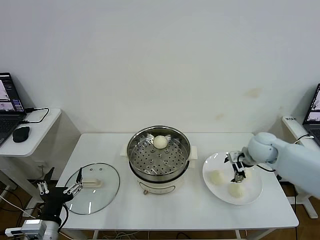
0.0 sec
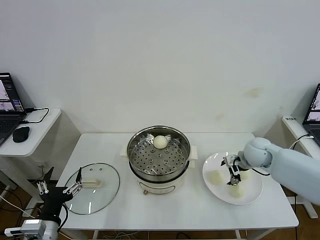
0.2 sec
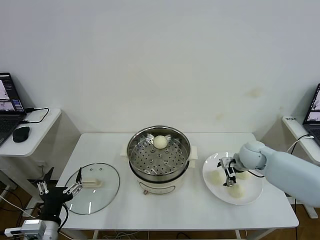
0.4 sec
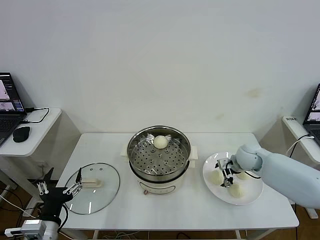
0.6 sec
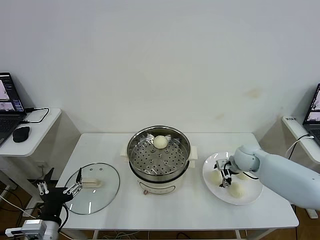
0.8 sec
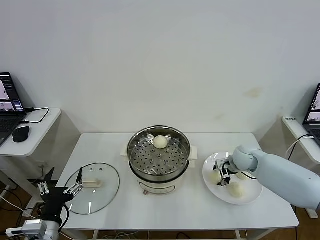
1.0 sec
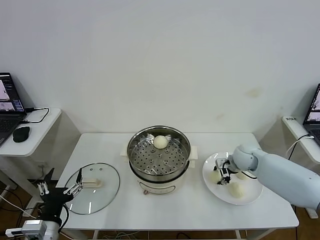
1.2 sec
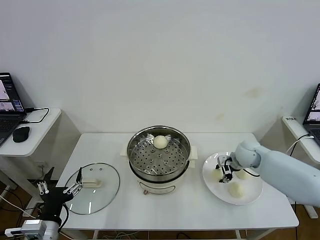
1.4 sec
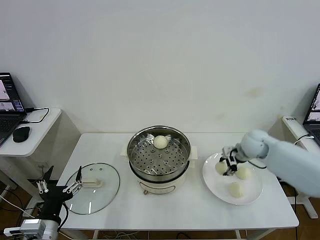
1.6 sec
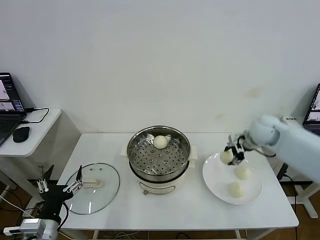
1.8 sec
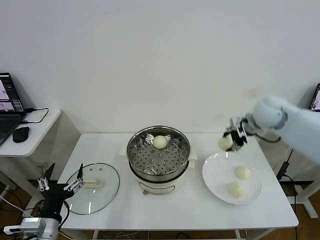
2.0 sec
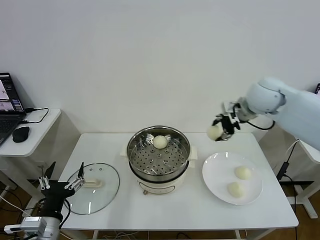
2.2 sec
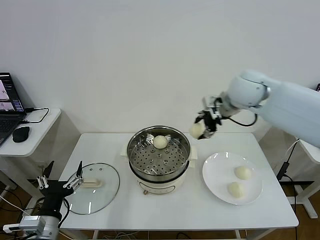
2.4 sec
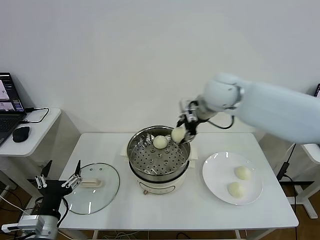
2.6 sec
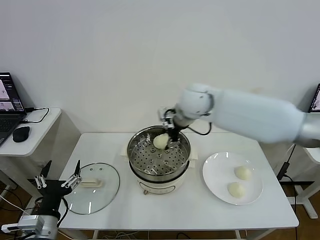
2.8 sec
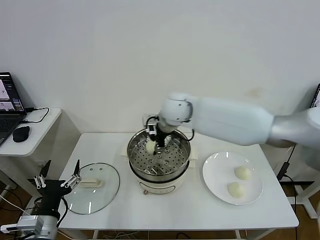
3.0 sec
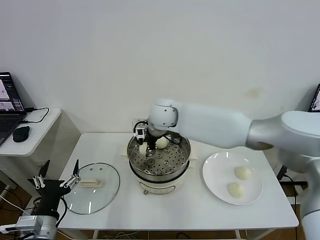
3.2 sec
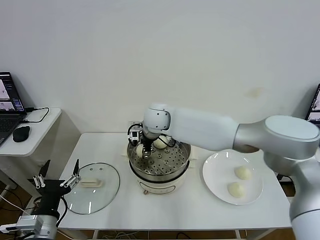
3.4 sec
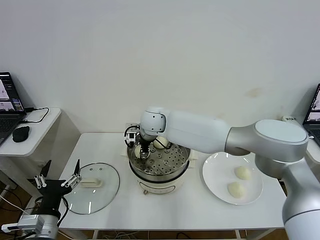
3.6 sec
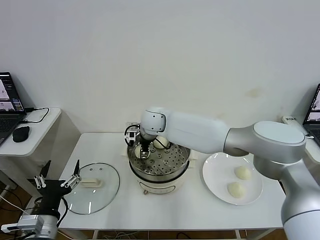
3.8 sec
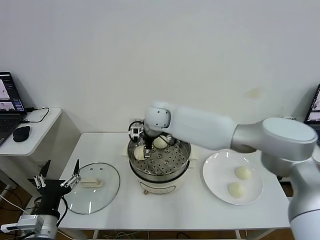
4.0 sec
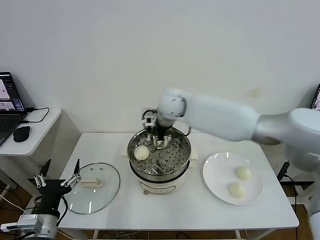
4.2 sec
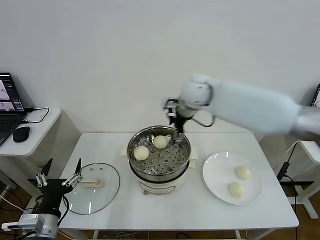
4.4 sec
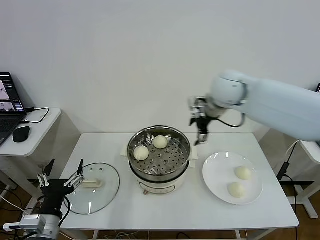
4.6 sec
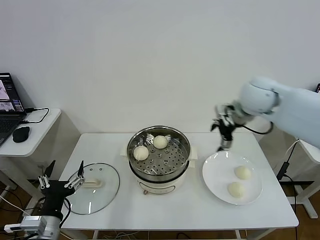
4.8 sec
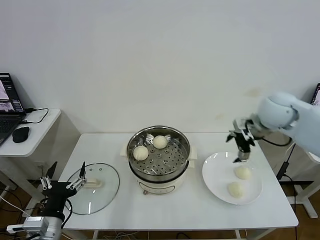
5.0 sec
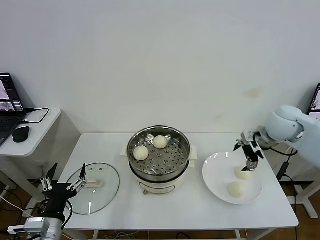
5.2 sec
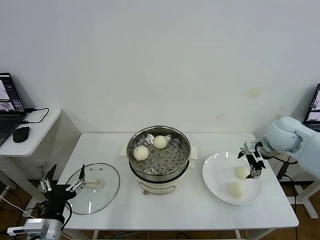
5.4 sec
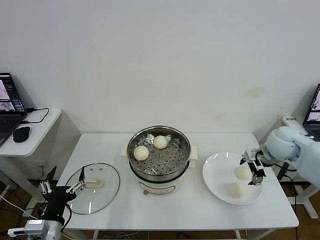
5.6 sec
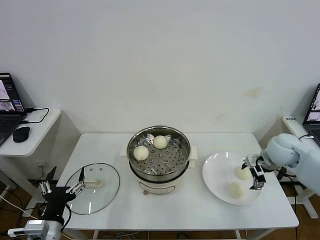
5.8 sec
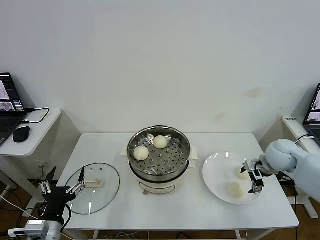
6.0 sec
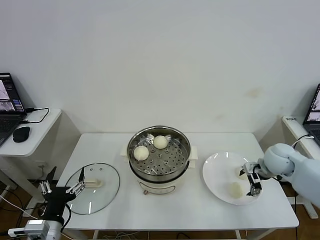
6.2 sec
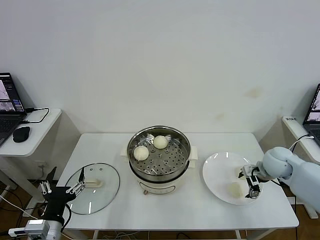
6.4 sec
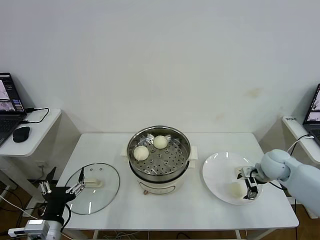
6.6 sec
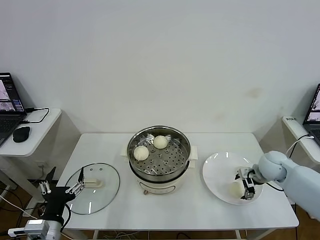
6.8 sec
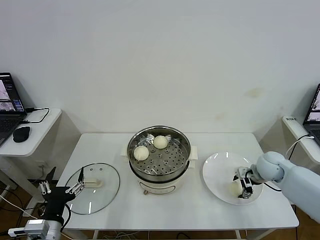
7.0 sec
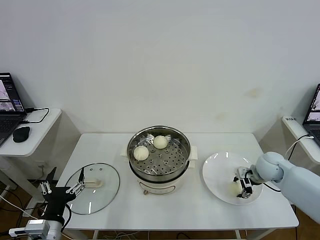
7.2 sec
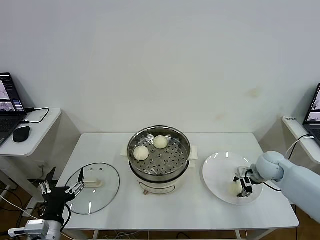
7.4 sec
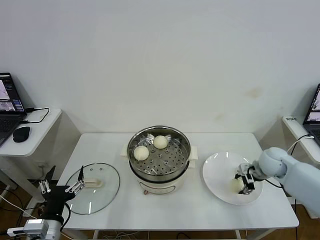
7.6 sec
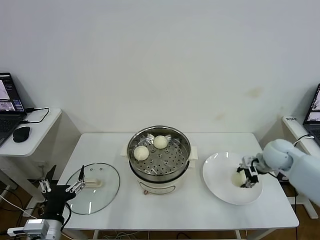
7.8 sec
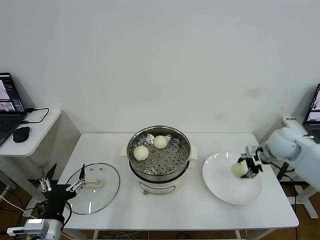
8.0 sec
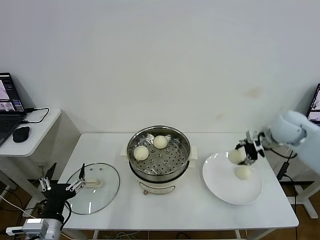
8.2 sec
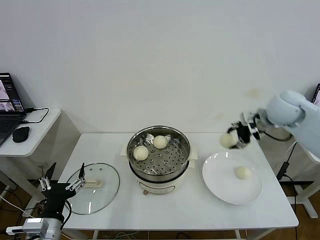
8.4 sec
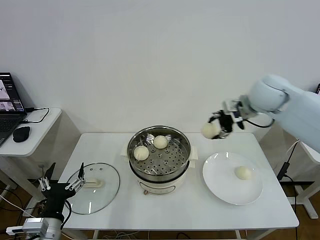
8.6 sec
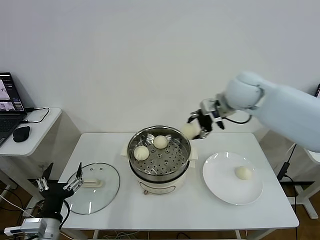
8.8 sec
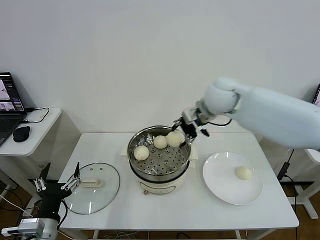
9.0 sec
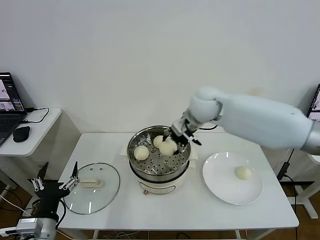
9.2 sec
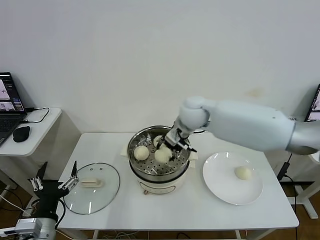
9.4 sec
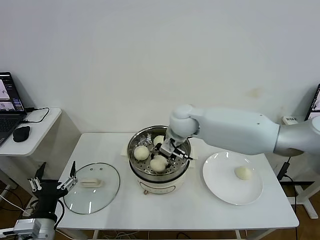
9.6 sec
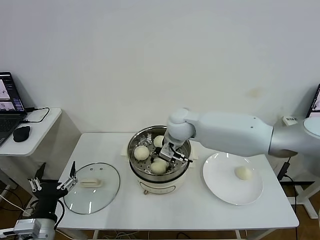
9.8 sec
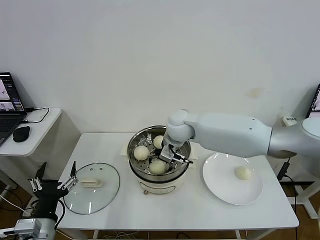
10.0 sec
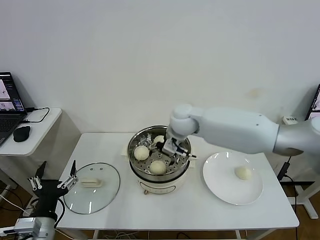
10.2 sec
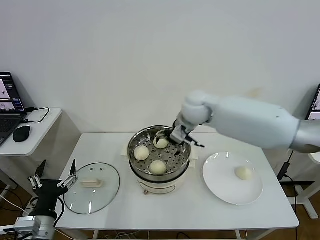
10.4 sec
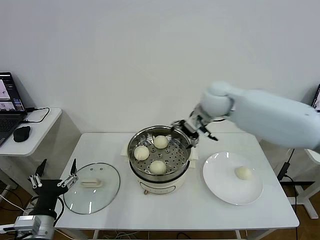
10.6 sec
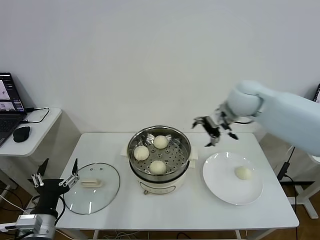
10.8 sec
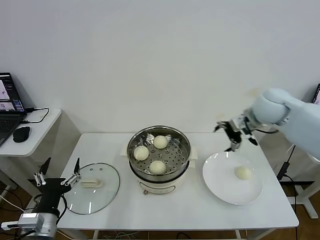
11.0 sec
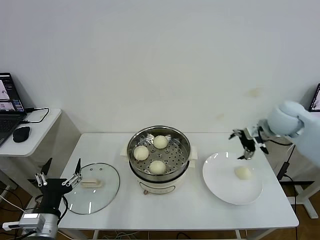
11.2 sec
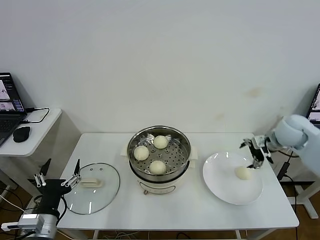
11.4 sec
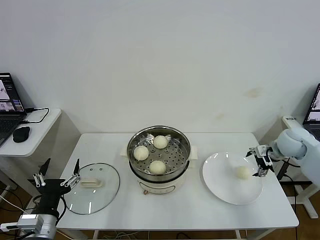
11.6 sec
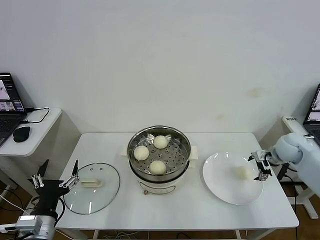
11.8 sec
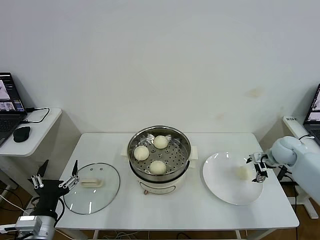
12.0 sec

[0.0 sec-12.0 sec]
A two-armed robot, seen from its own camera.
Step, 1.4 sec to 4.0 sec: Place the baozi on the steamer with right gripper.
Step, 4.2 sec to 7.4 sec: Grasp the baozi in the plate with right gripper.
Step, 7.6 sec to 10.2 sec: Place the baozi on the steamer with right gripper.
0.0 sec to 1.6 sec: The right gripper travels downward and back again, approximately 5 cm each way, and closes its fingers.
1.6 sec to 3.0 sec: The right gripper is displaced to the left by approximately 30 cm.
3.0 sec to 4.4 sec: The right gripper moves to the right and upward, approximately 10 cm, and opens up.
4.4 sec to 6.0 sec: The right gripper shifts approximately 30 cm to the right and downward.
6.0 sec to 7.6 sec: The right gripper closes.
7.6 sec to 9.0 sec: The right gripper shifts roughly 30 cm to the left and upward.
9.0 sec to 10.4 sec: The right gripper moves about 10 cm downward and comes back, and opens.
10.4 sec to 12.0 sec: The right gripper heads to the right and downward, covering some 35 cm.

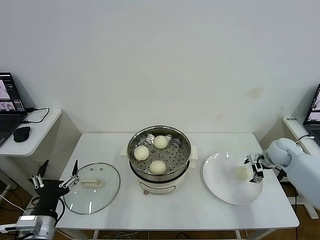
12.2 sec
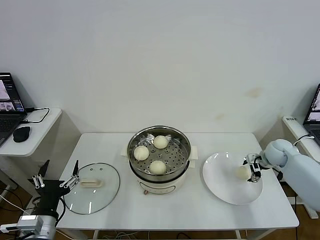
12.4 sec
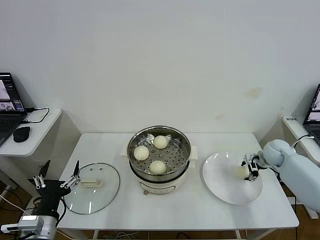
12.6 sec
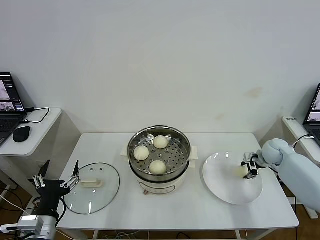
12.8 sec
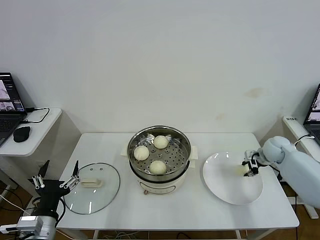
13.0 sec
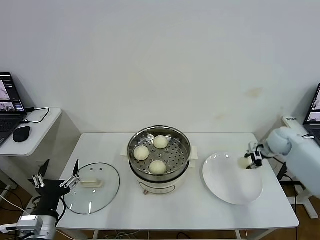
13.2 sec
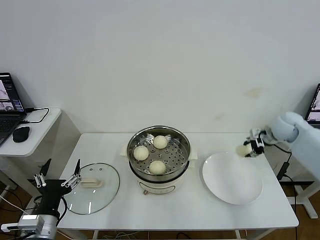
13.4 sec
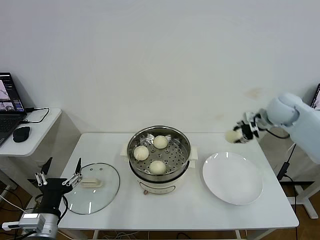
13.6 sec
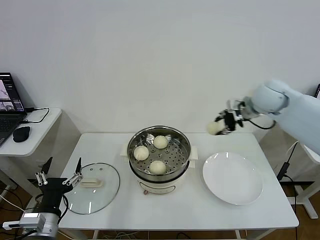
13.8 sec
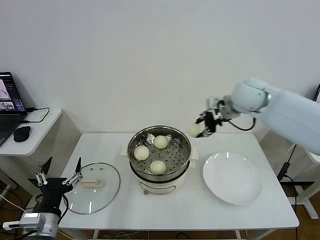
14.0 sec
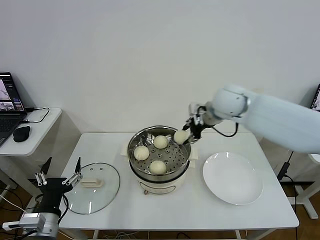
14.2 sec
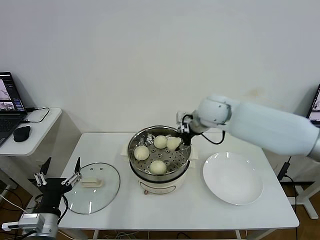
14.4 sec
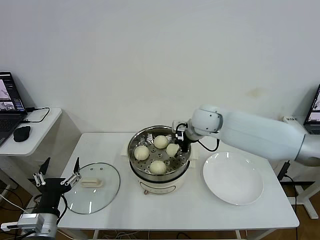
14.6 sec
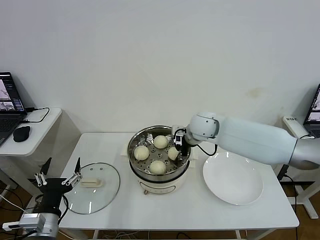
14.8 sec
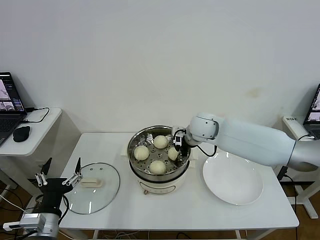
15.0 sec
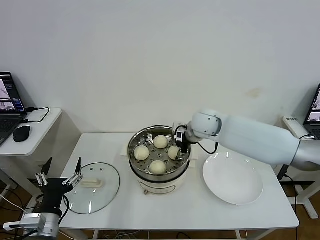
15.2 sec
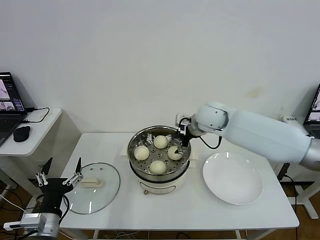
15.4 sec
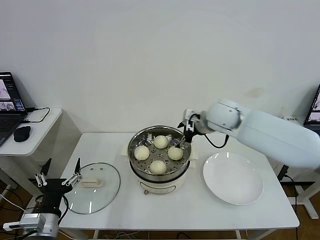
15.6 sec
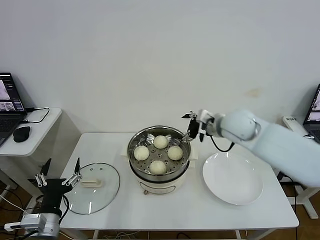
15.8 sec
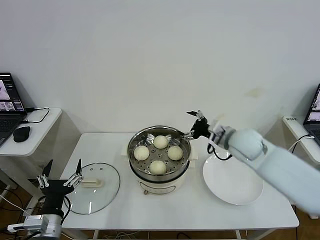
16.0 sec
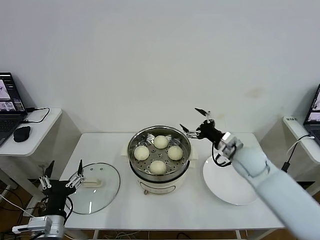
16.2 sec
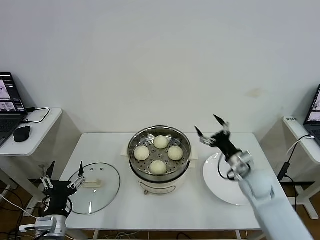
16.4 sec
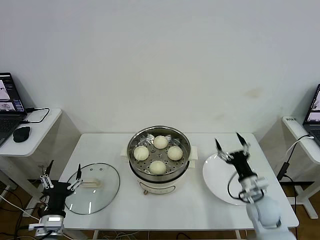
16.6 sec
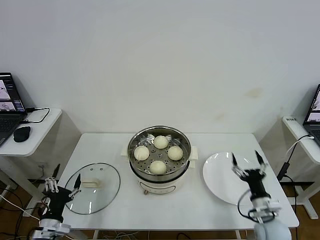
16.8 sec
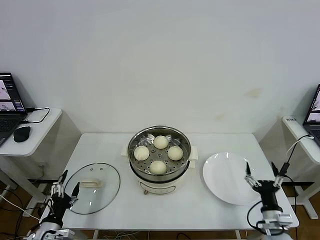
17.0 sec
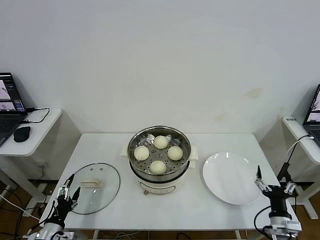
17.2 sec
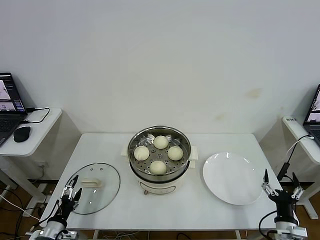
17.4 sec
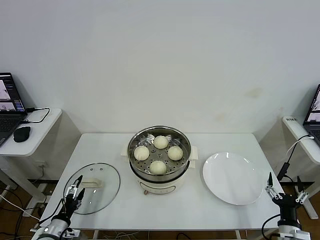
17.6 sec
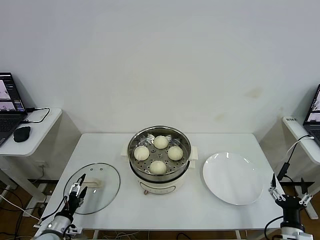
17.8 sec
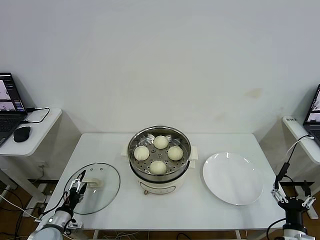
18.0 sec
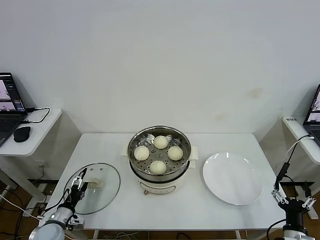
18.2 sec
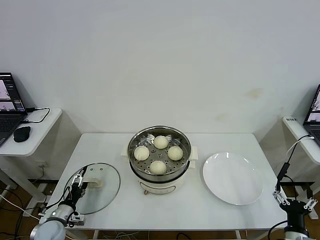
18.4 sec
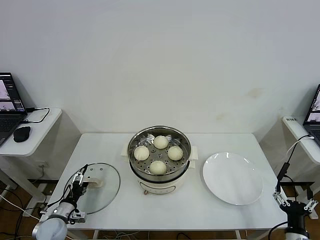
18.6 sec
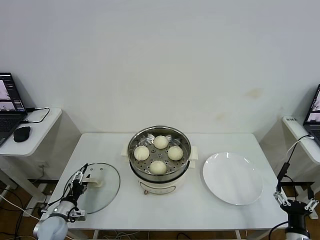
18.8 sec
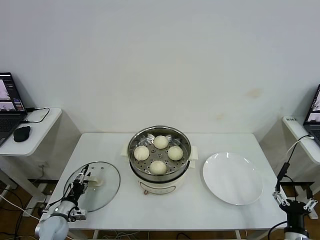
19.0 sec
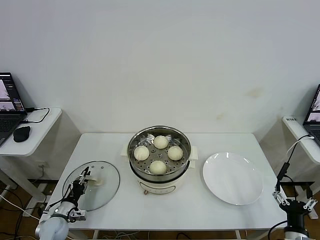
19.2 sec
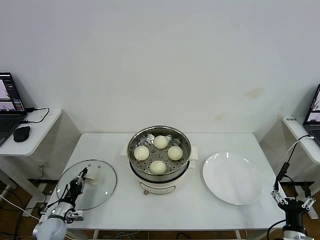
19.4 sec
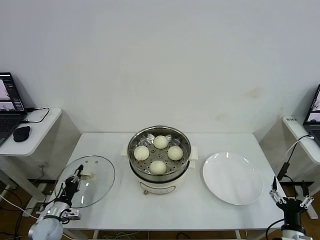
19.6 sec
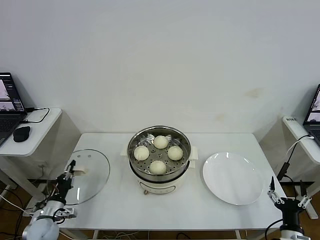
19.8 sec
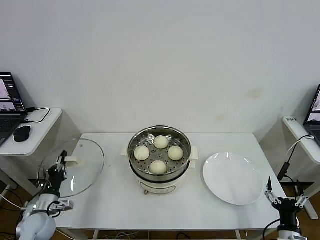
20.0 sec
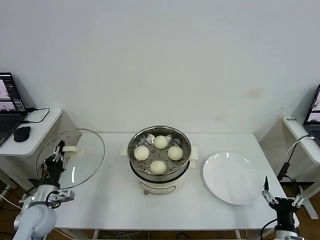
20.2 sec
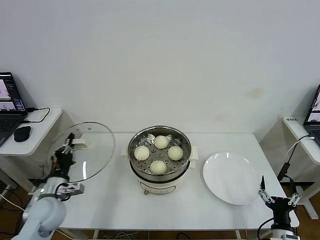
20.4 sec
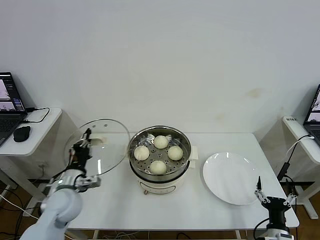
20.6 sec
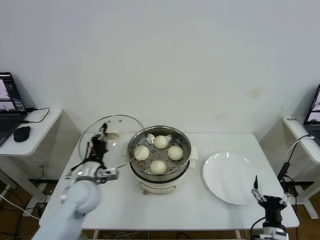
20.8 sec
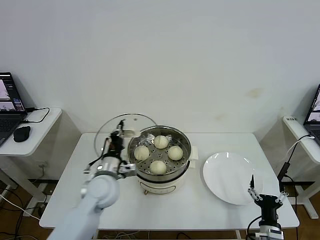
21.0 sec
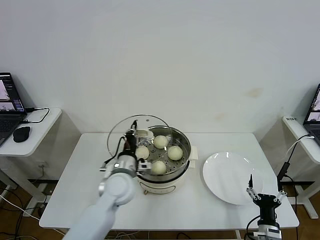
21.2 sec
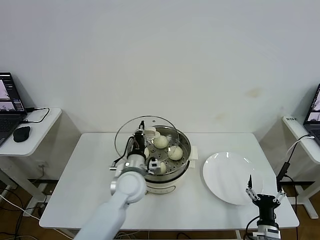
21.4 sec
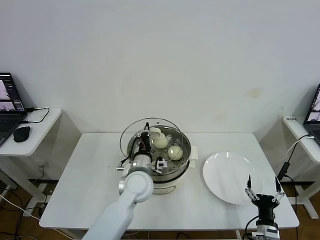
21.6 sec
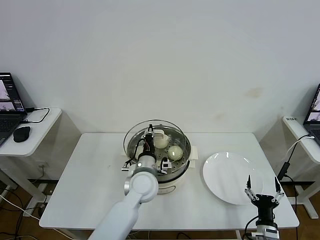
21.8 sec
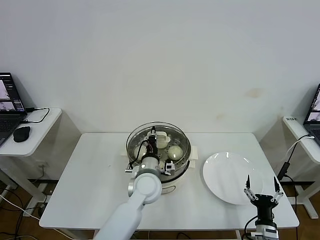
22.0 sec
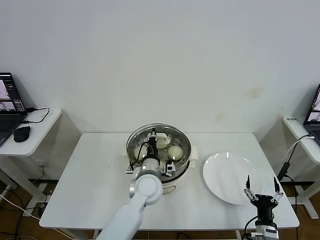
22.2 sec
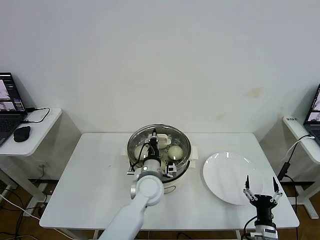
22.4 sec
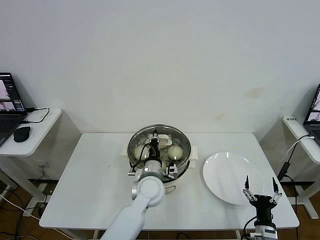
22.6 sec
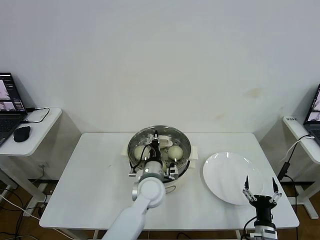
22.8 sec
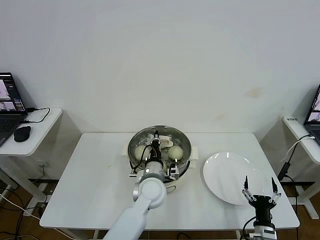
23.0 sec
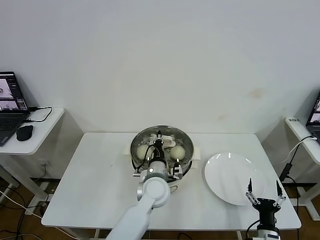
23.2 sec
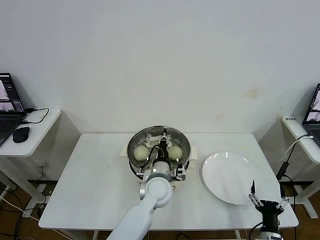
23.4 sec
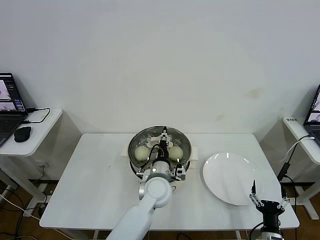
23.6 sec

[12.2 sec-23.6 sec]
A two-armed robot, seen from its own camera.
Step, 13.0 sec to 15.4 sec: Place the baozi on the steamer with right gripper.
Step, 15.8 sec to 19.6 sec: Grasp the pot lid with left gripper.
12.2 sec to 13.6 sec: The right gripper moves upward, approximately 20 cm, and closes.
13.6 sec to 15.0 sec: The right gripper goes about 25 cm to the left.
15.0 sec to 16.4 sec: The right gripper goes approximately 25 cm to the right, backward and downward, and opens.
16.4 sec to 17.8 sec: The right gripper moves backward, downward and to the right, about 25 cm. The left gripper is displaced downward and to the left by some 15 cm.
17.8 sec to 19.4 sec: The left gripper travels forward by approximately 5 cm, and closes its fingers.
19.4 sec to 20.8 sec: The left gripper shifts some 25 cm upward and to the right. Meanwhile the right gripper moves some 5 cm.
20.8 sec to 22.2 sec: The left gripper heads to the right, covering roughly 20 cm.
22.2 sec to 23.6 sec: The left gripper opens.
